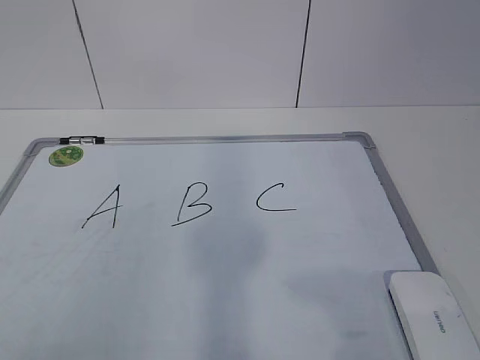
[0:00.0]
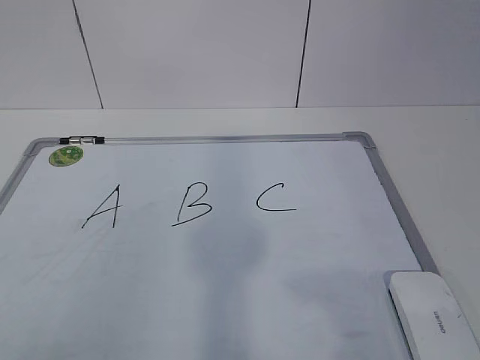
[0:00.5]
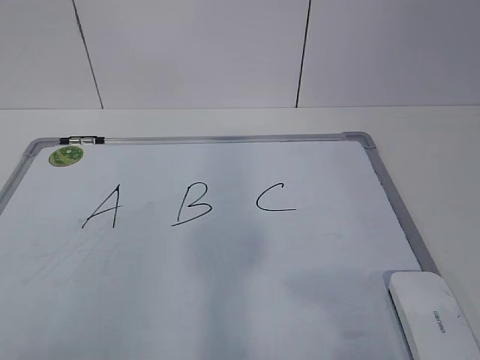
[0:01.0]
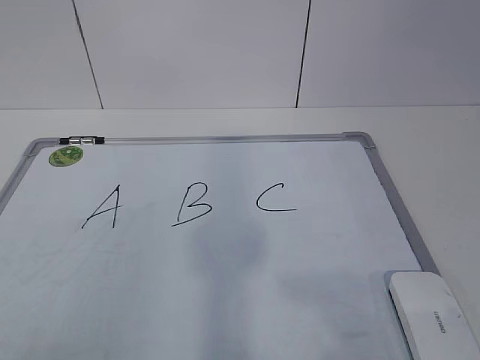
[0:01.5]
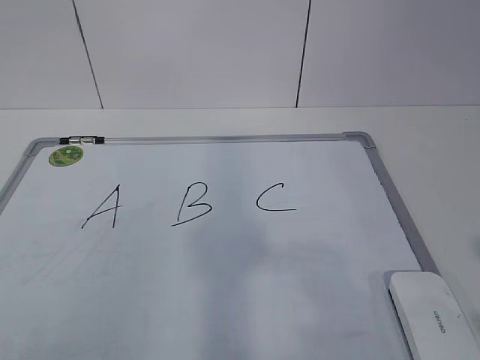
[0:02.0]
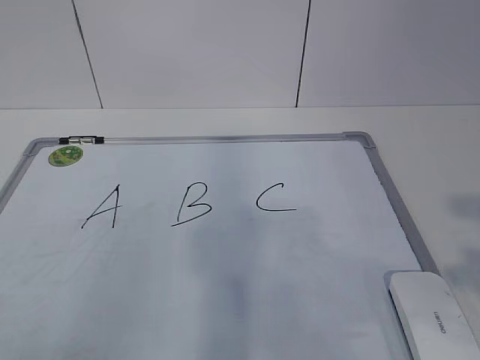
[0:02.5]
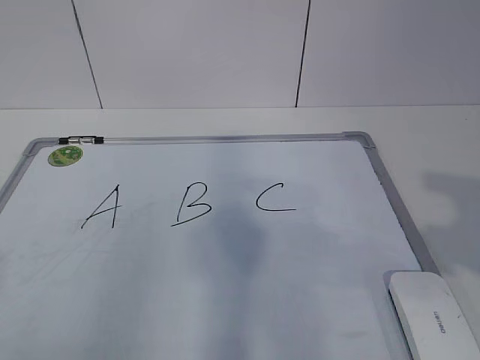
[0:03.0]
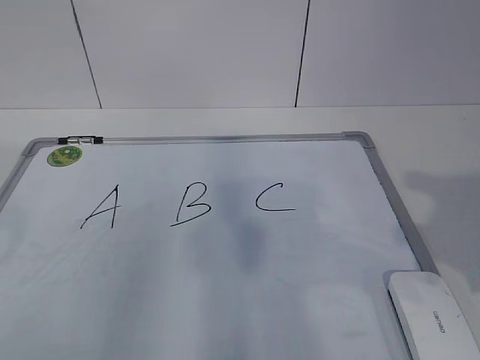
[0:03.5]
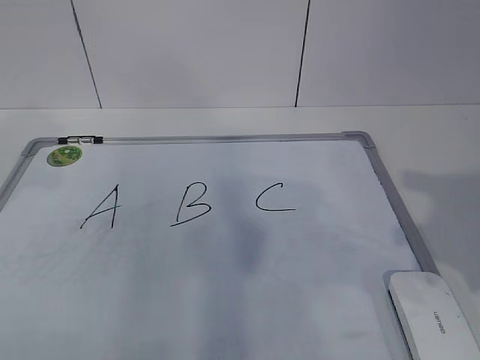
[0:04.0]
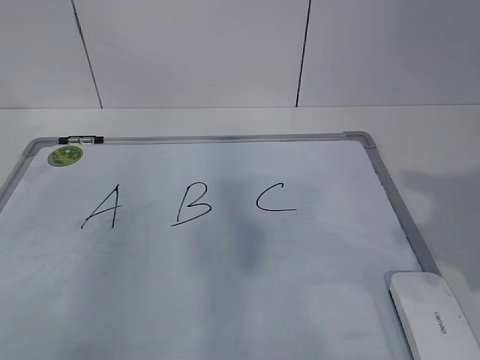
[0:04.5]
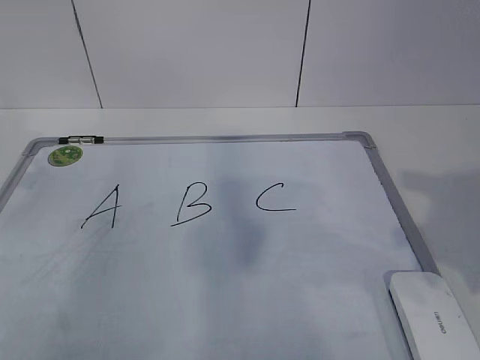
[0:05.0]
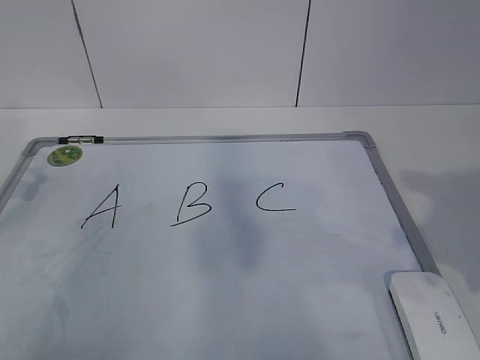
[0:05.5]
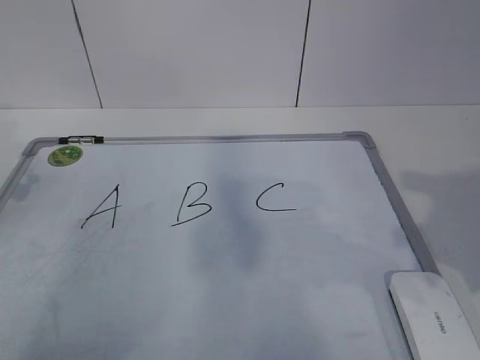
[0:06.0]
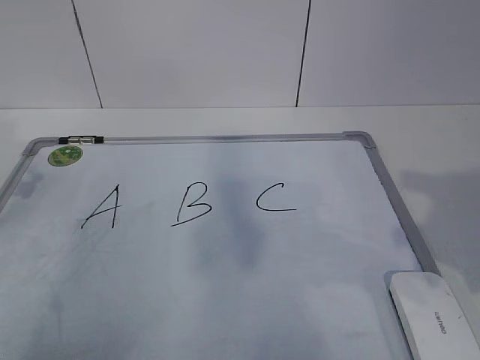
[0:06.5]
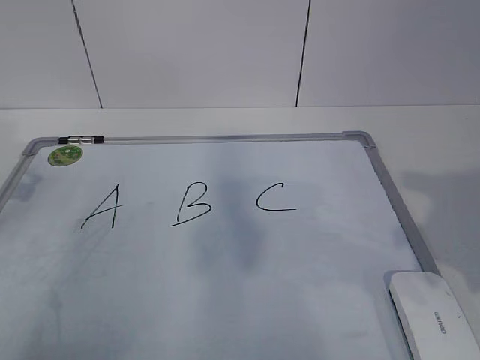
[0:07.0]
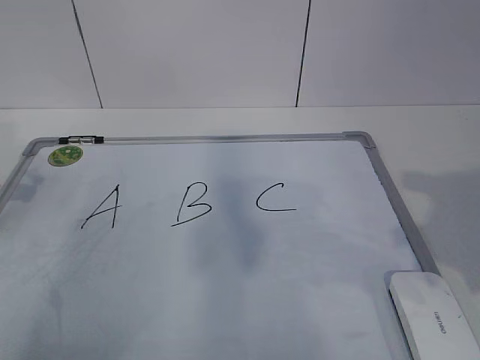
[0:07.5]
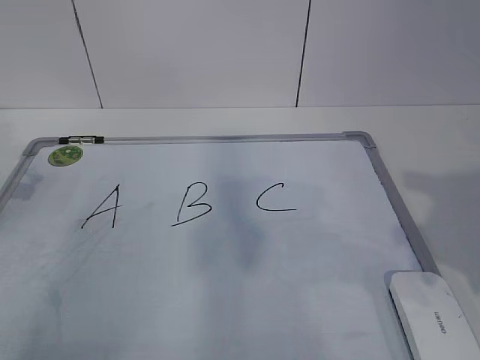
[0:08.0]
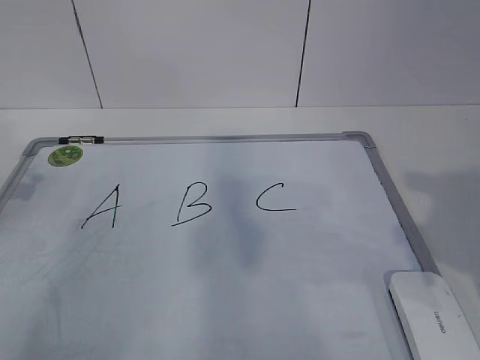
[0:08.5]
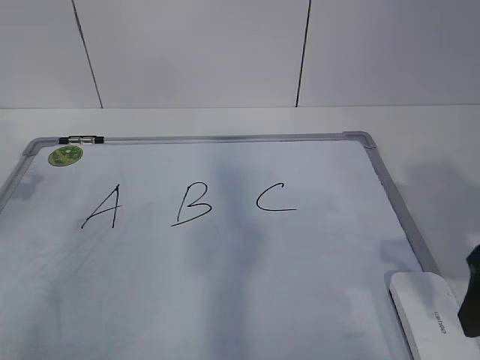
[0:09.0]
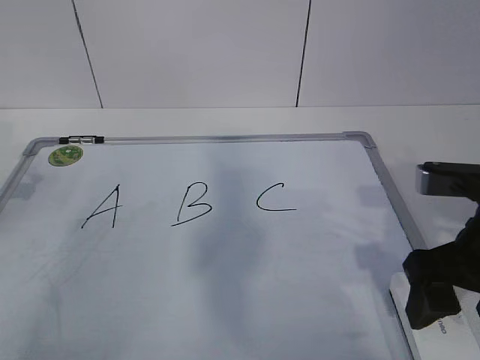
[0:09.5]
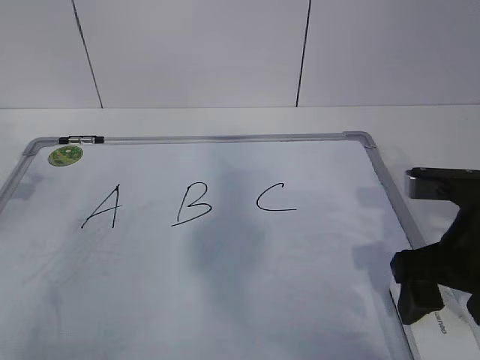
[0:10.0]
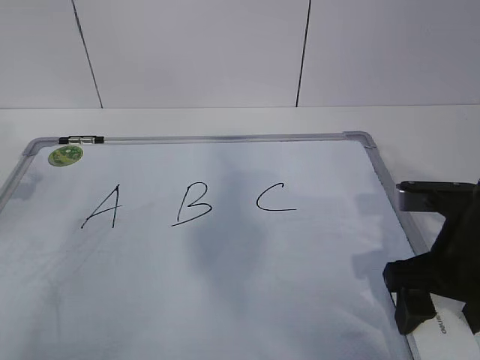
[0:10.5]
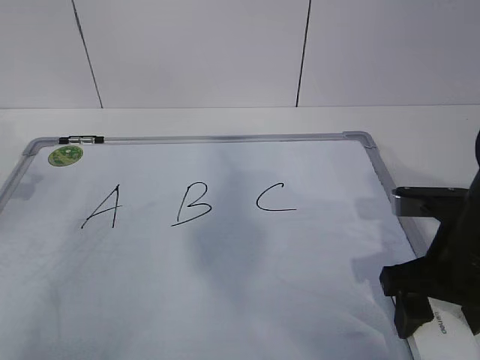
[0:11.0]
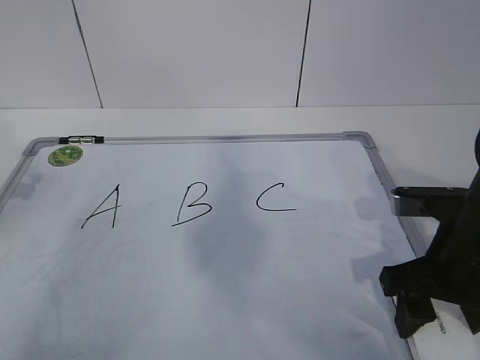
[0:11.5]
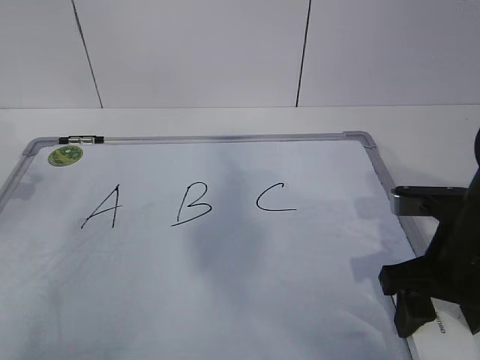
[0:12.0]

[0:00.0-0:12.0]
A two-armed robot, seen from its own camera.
Task of the whole recording: pick up the eraser on the blackboard and erase the letter "B".
Step, 0:05.5 to 0:10.5: Grab the eraser with your right hand.
0:02.0 to 0:04.0: The right gripper heads forward, covering some 15 cm, and opens its fingers. The left gripper goes about 25 cm forward.
0:04.0 to 0:06.0: The left gripper shifts about 20 cm downward, forward and to the left.
0:08.0 to 0:10.0: The right gripper goes some 15 cm downward and forward.
0:10.0 to 0:12.0: The grippers make only small movements.

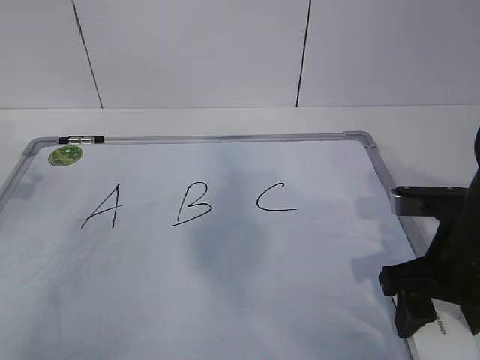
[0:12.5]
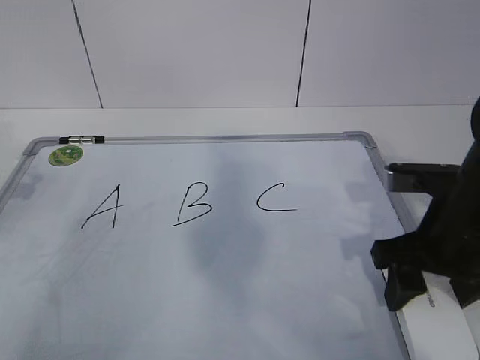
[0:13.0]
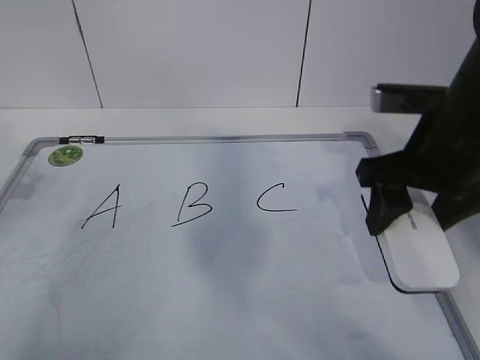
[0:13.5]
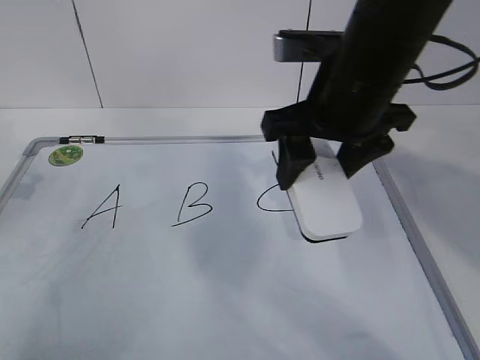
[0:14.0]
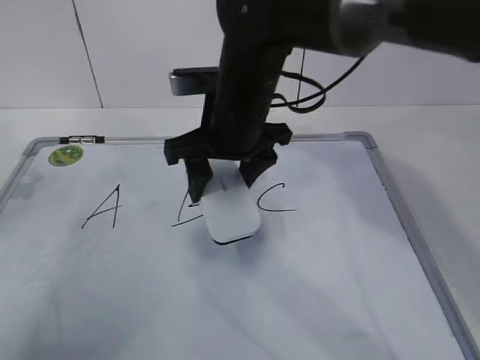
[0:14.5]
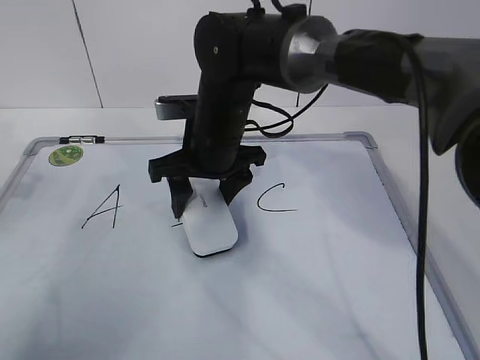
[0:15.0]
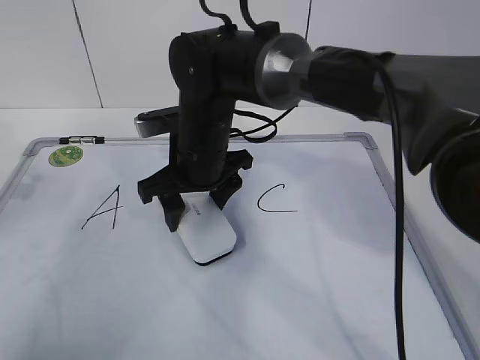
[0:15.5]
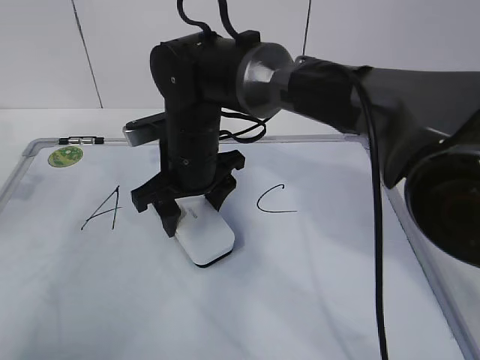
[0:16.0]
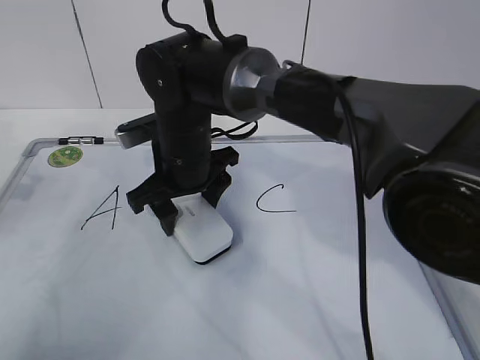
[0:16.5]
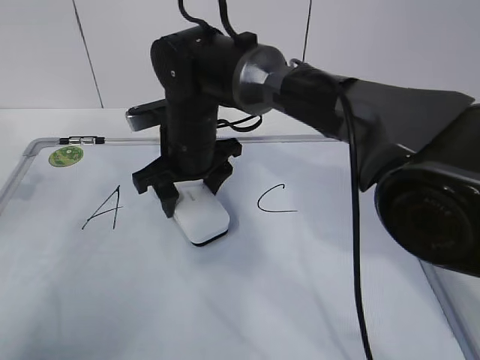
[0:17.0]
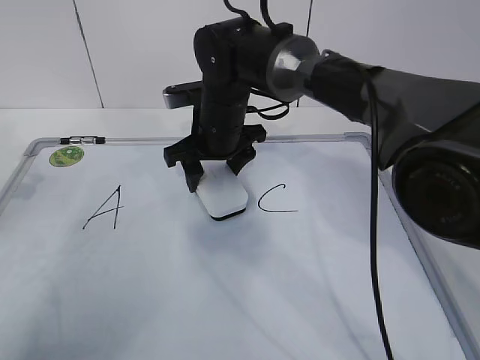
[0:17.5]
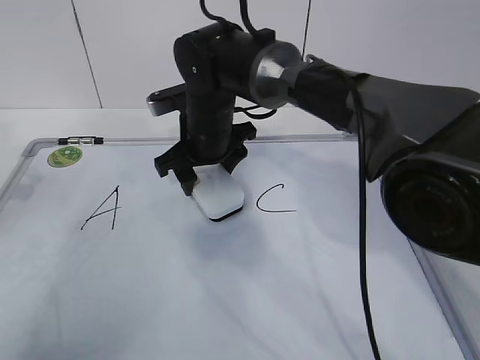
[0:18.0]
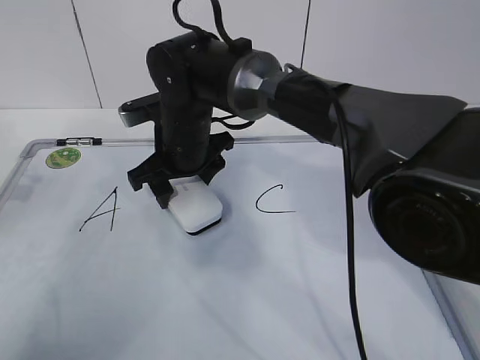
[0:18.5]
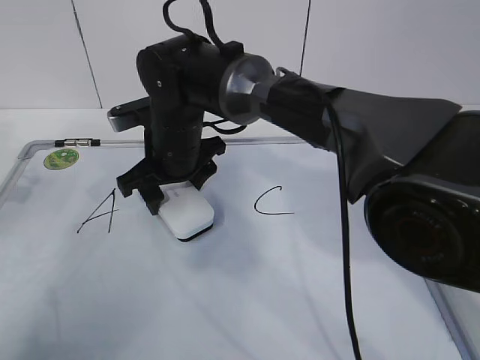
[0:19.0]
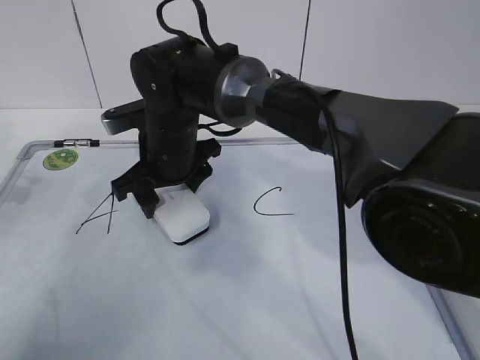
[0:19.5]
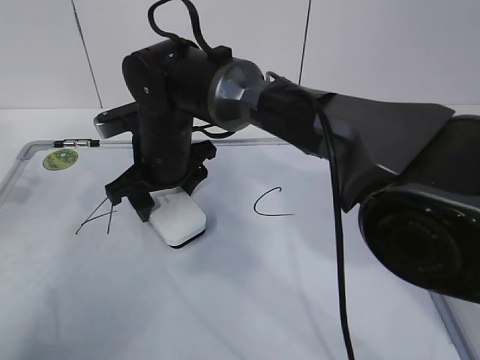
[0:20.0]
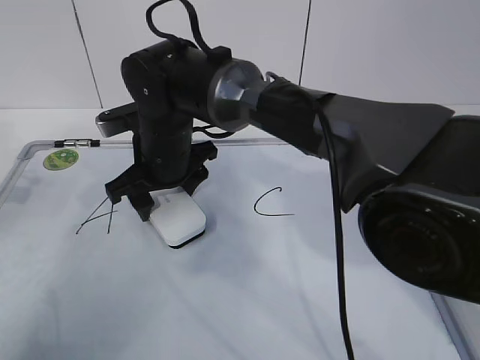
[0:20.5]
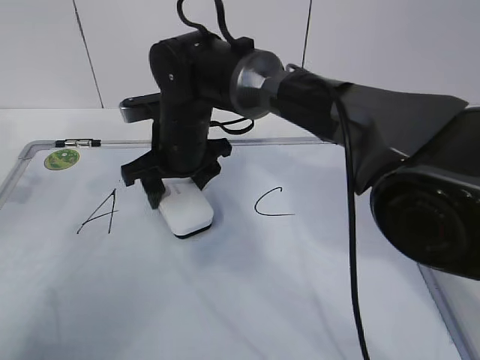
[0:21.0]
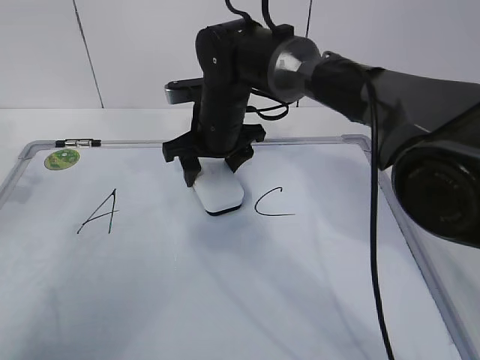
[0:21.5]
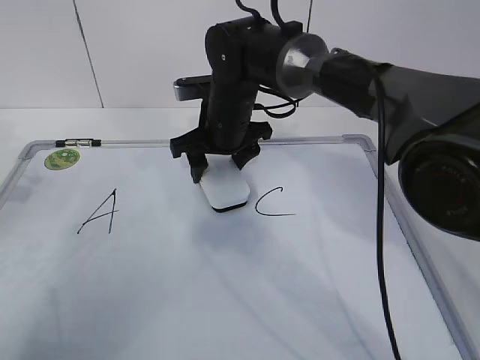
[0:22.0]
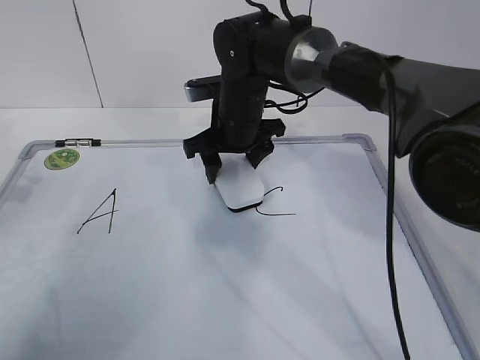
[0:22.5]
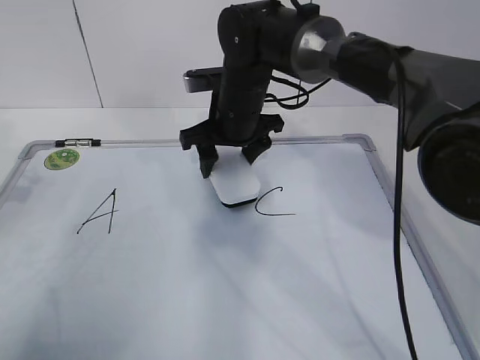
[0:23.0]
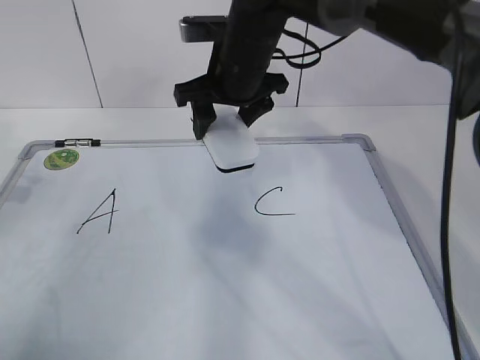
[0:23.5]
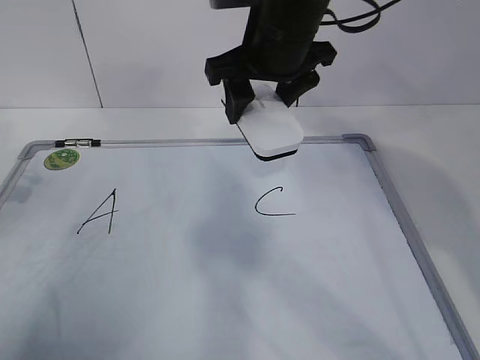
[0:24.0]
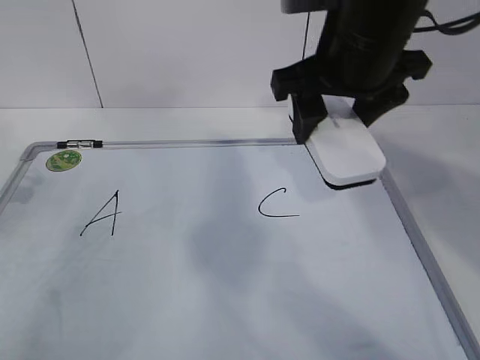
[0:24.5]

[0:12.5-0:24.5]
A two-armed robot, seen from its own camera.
Task of the whole recording: pick up the eraser on the blackboard and erase the letter "B".
Step, 0:12.5 to 0:18.5: Erase the letter B with your right hand.
Step, 0:19.0 to 0:23.5: Put down the eraser with your right hand.
0:12.5 to 0:14.5: The right gripper is displaced to the left and forward by about 25 cm.
0:14.5 to 0:16.5: The right gripper is displaced downward and to the left by roughly 10 cm.
0:18.5 to 0:20.5: The grippers stay close to where they were, moving slightly.
0:20.5 to 0:22.5: The right gripper moves to the right and forward, roughly 10 cm.
0:22.5 to 0:24.5: The right gripper moves upward, backward and to the right, about 20 cm.

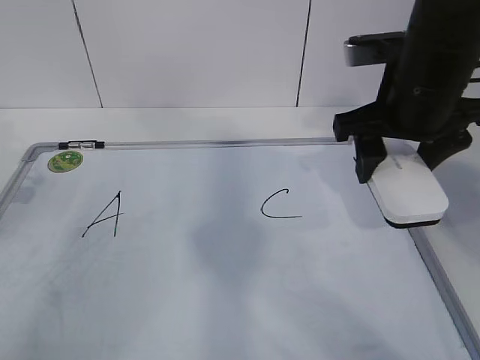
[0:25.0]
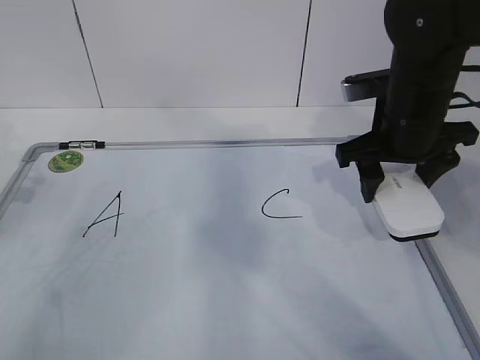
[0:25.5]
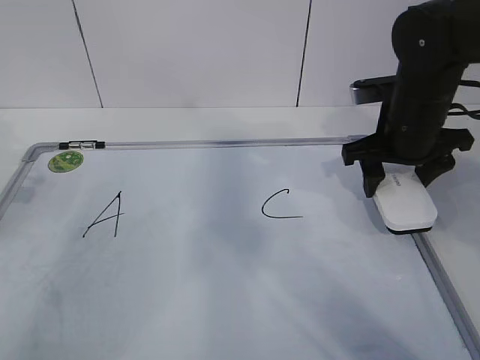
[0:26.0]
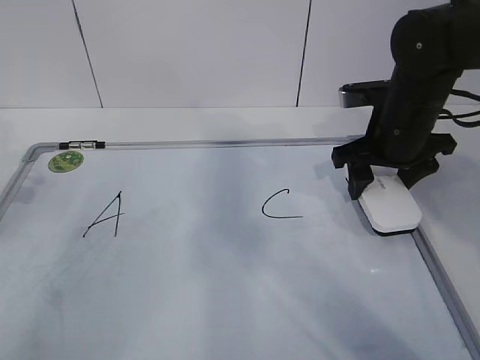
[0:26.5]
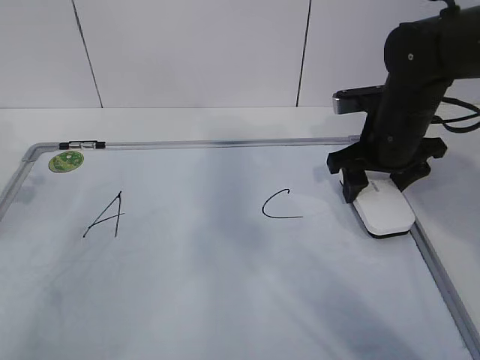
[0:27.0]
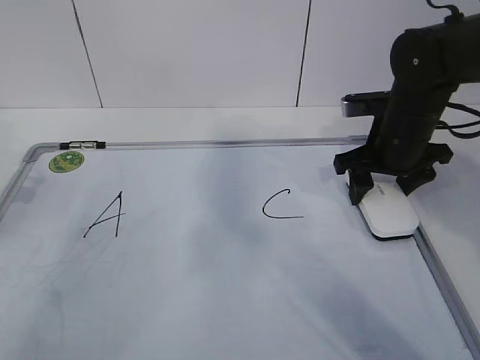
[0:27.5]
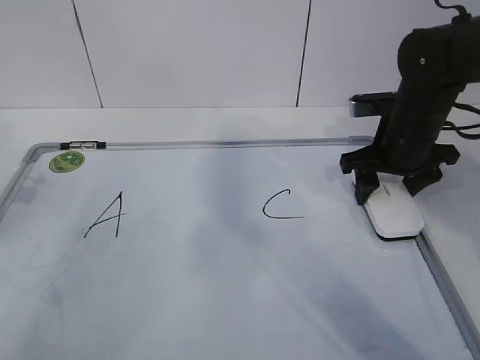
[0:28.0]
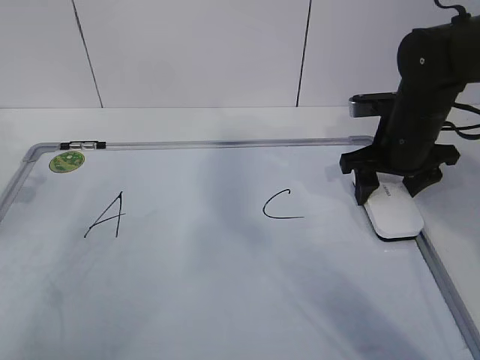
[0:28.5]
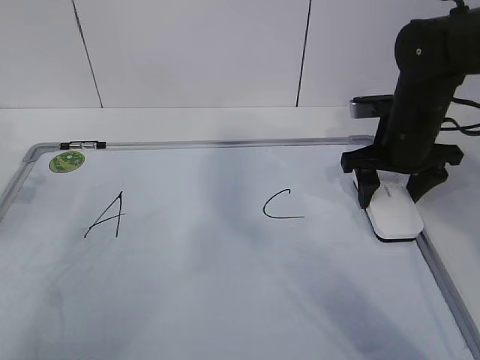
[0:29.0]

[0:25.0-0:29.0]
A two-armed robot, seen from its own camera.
Task of the whole recording: pick up the eraser on the blackboard and erase the letter "B".
0:25.0 to 0:27.0: The right gripper heads downward and forward, covering approximately 10 cm.
0:27.0 to 0:29.0: The grippers stay close to where they were, moving slightly.
